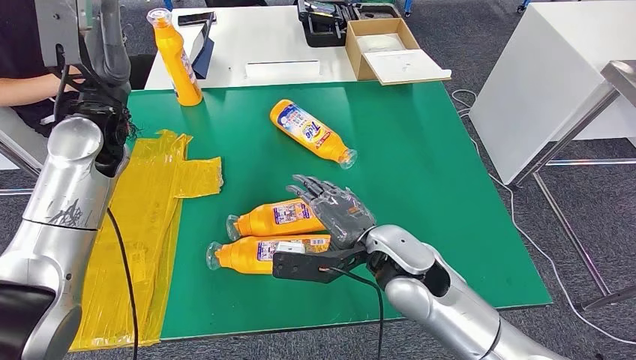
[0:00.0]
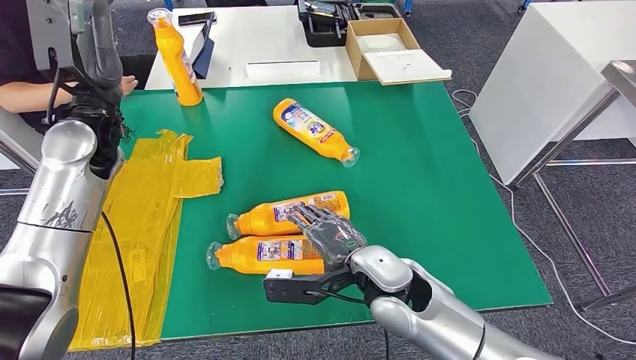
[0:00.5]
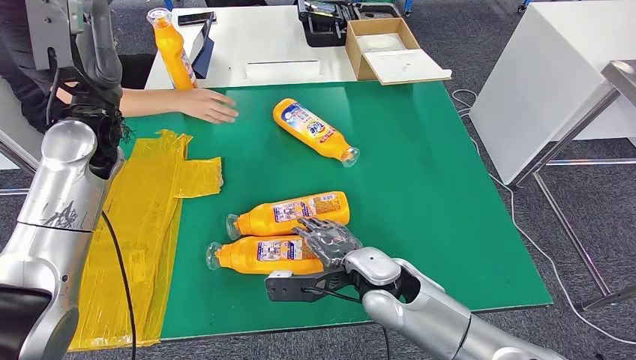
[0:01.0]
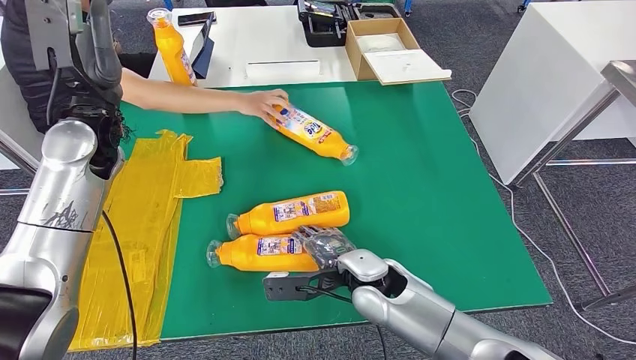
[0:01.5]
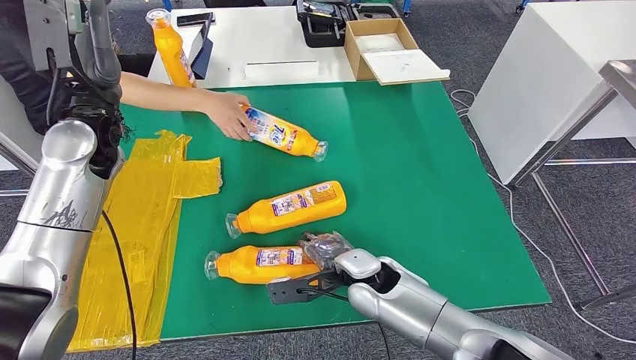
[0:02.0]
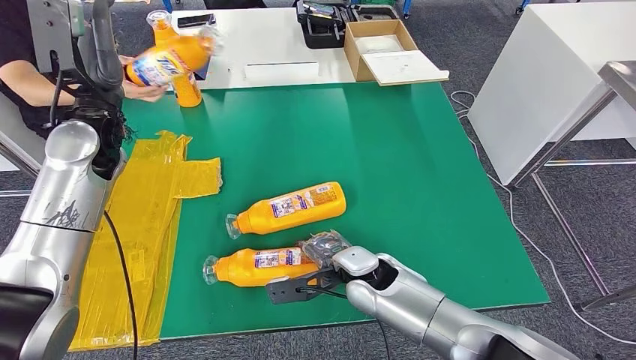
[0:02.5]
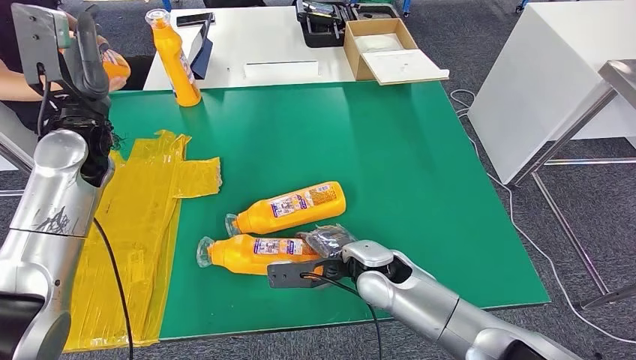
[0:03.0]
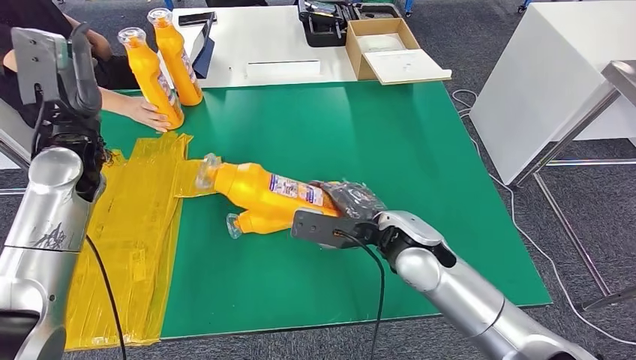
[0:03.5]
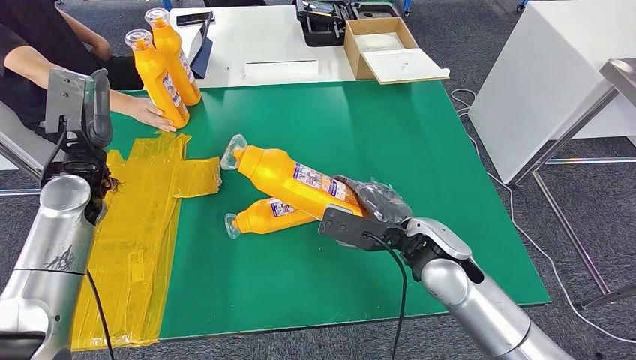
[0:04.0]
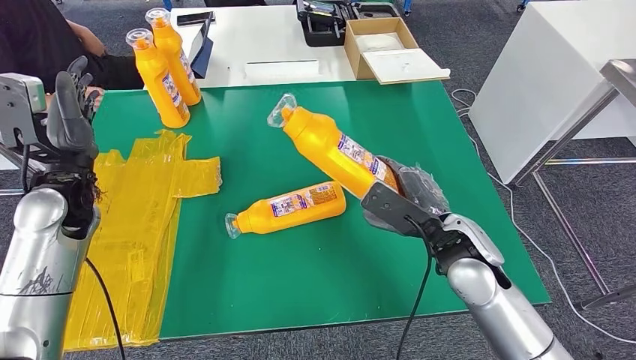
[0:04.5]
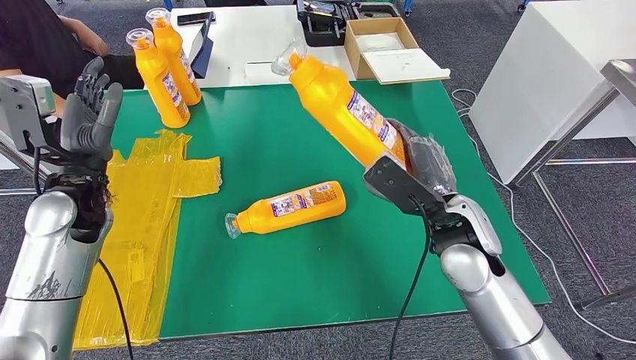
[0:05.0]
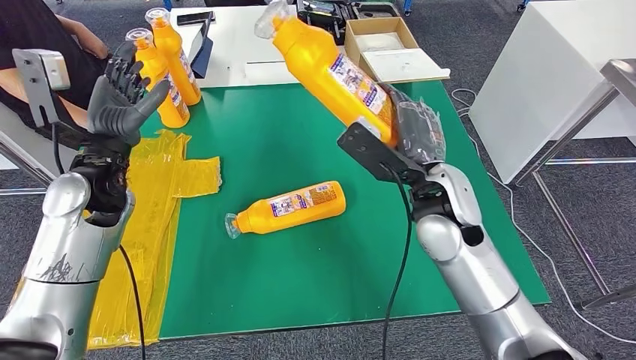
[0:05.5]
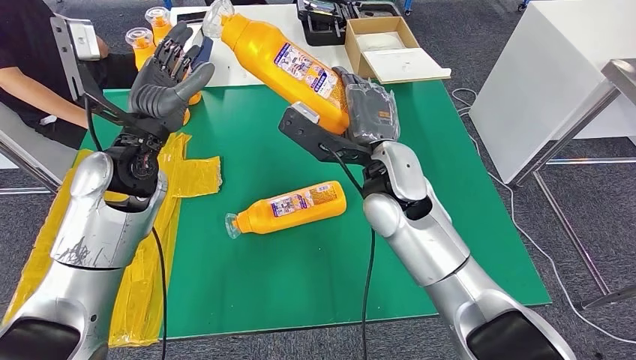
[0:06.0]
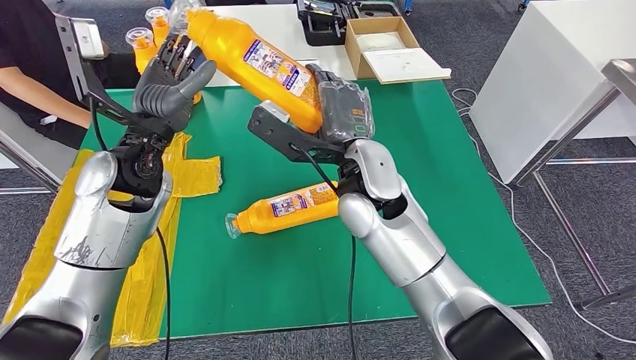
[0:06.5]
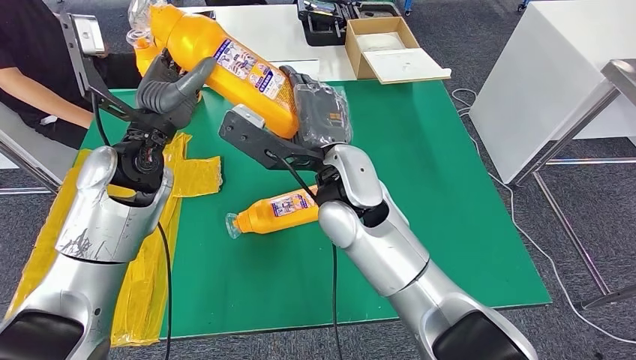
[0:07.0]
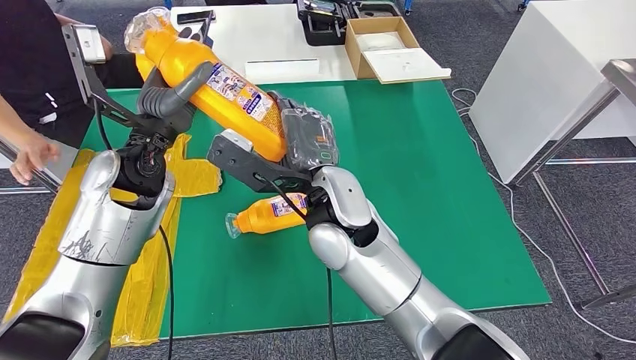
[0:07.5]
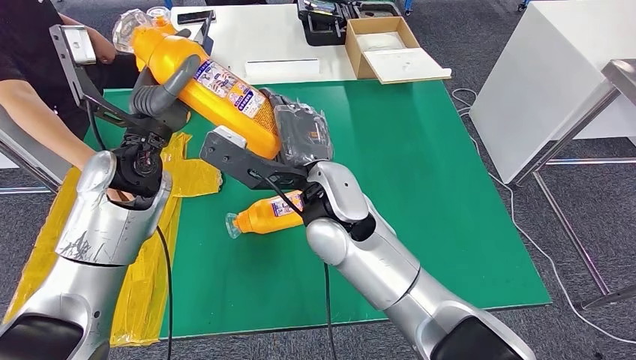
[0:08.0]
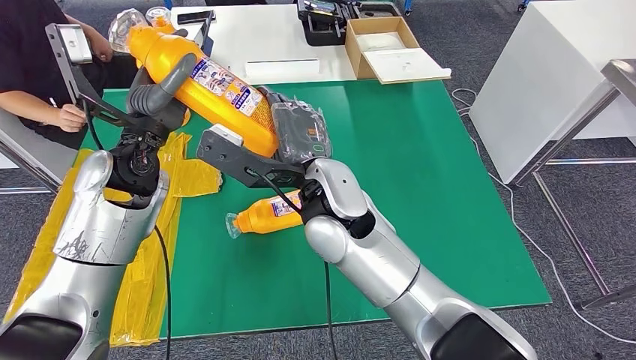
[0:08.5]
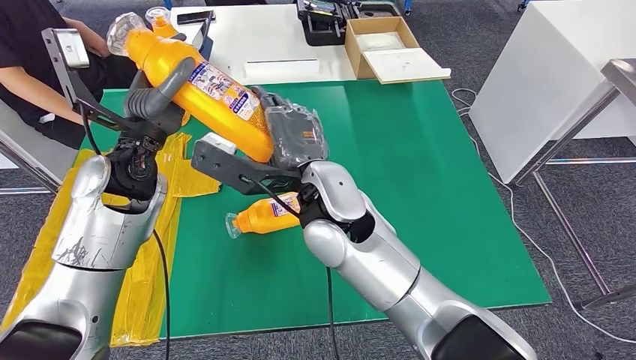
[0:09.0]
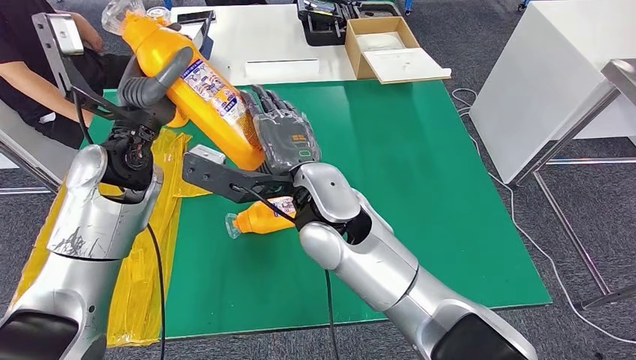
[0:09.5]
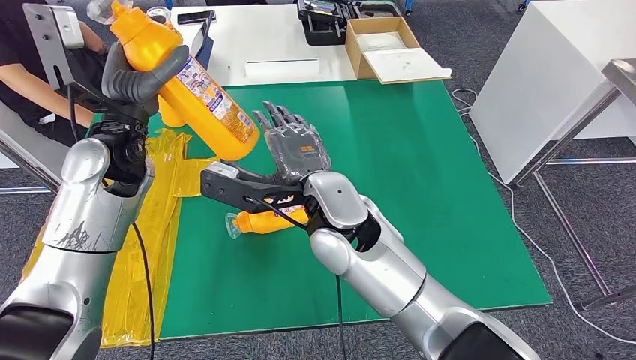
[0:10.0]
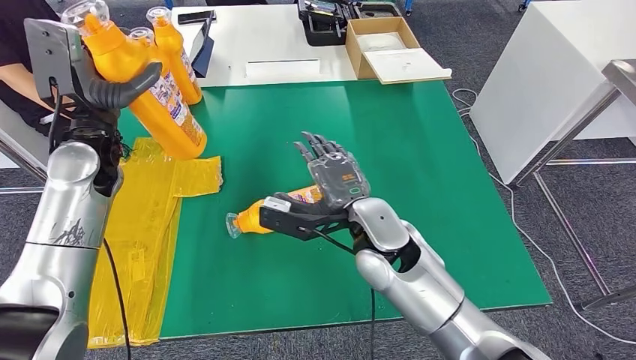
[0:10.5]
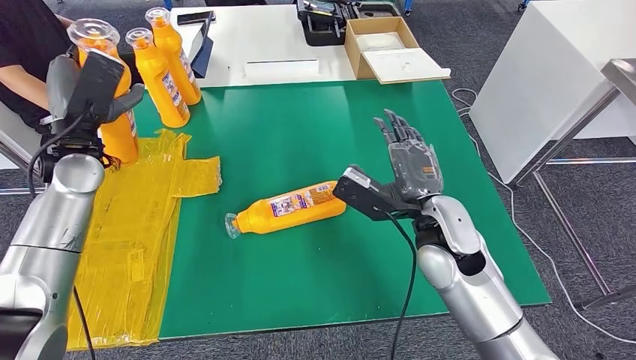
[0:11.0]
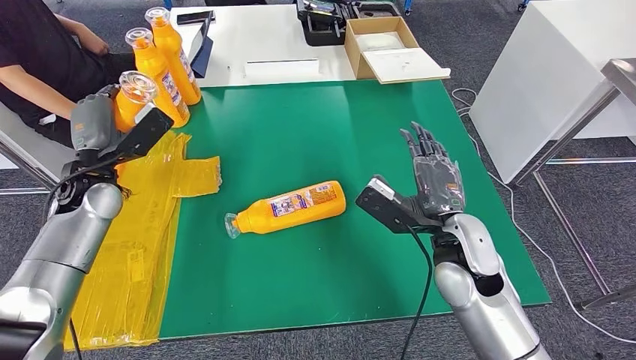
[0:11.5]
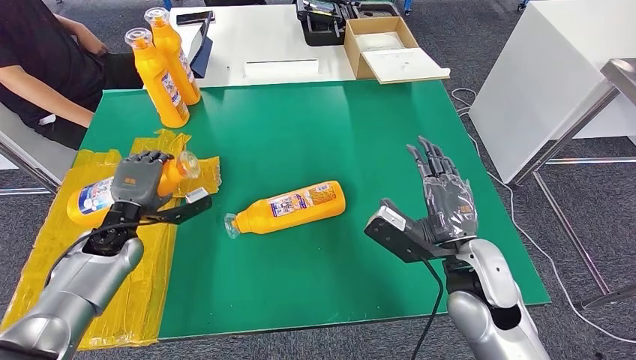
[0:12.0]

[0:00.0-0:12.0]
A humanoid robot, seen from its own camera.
Step, 0:01.0 to 0:07.5: Pick up the fast-moving consumer goods bottle from the table.

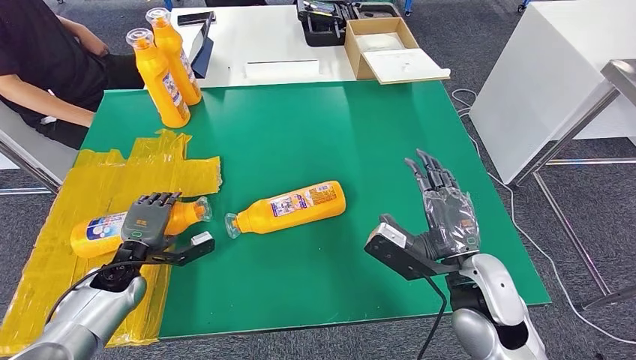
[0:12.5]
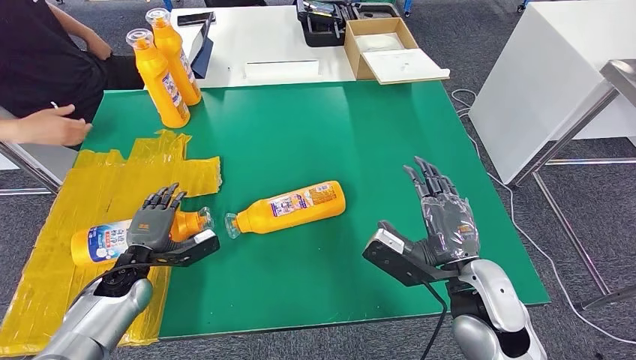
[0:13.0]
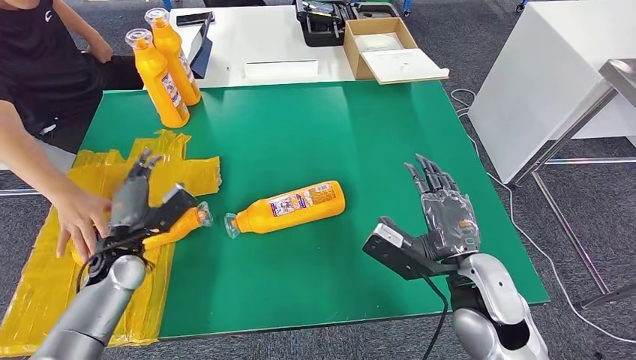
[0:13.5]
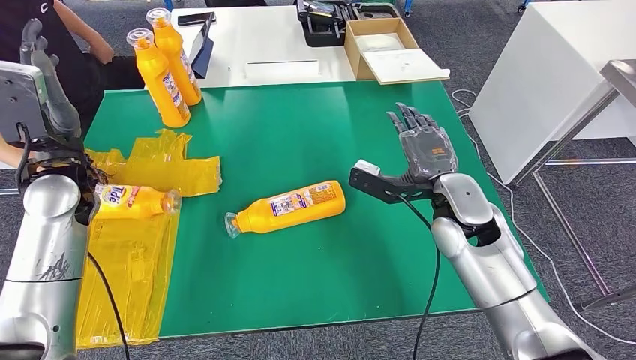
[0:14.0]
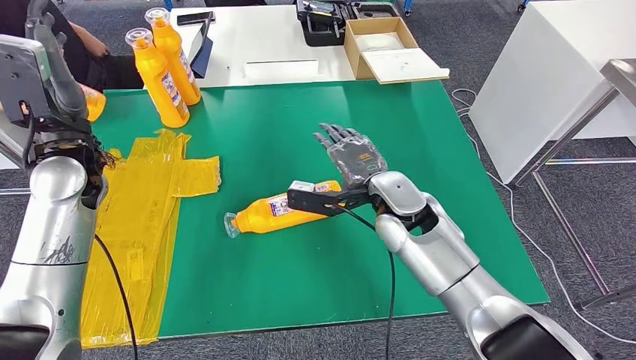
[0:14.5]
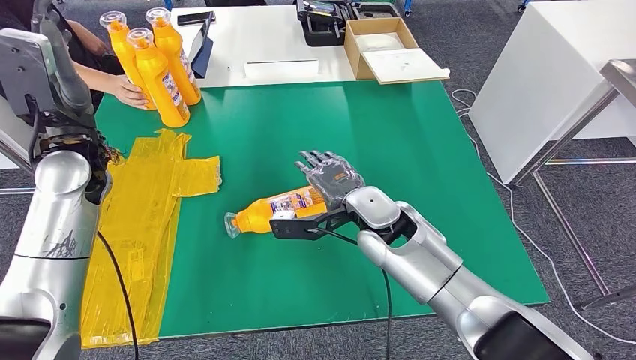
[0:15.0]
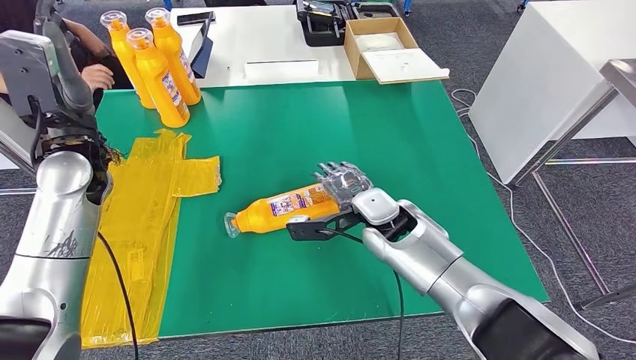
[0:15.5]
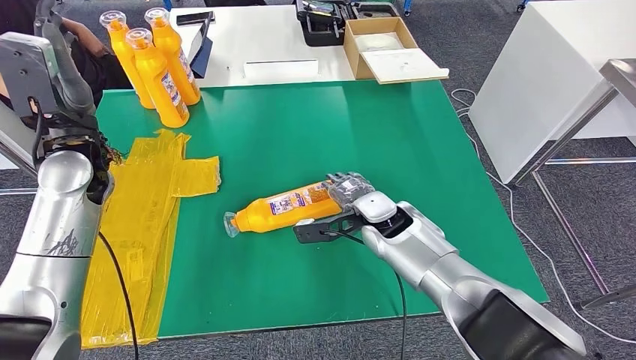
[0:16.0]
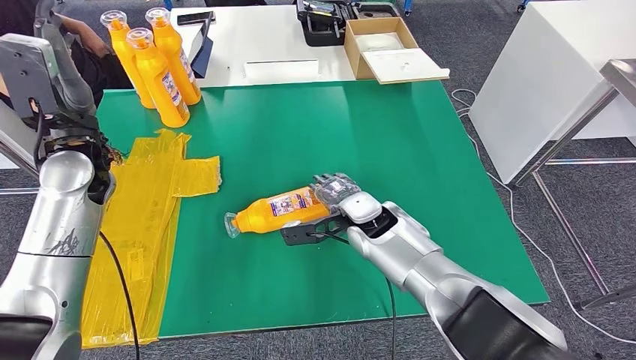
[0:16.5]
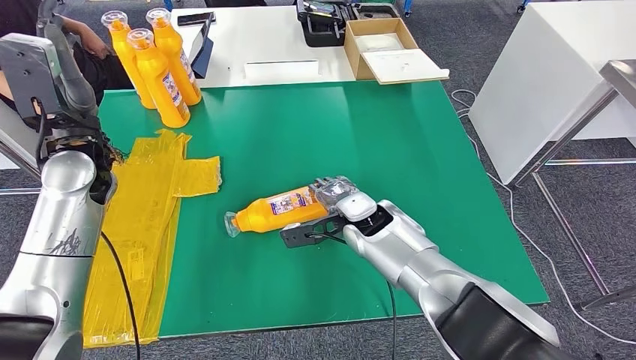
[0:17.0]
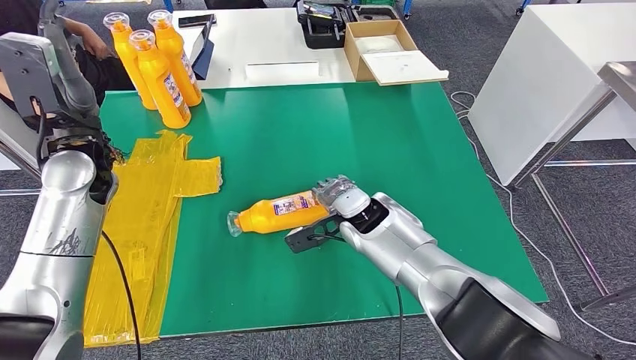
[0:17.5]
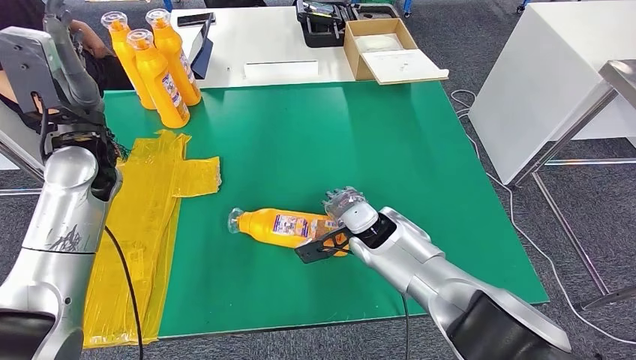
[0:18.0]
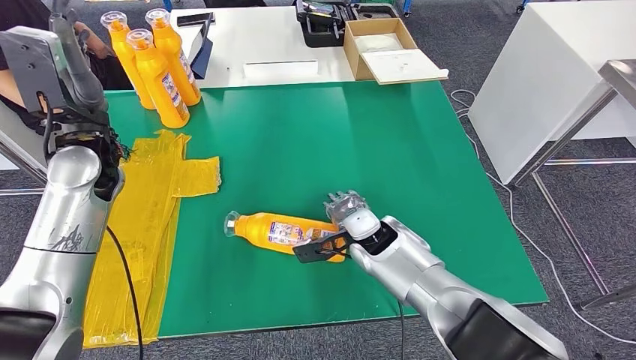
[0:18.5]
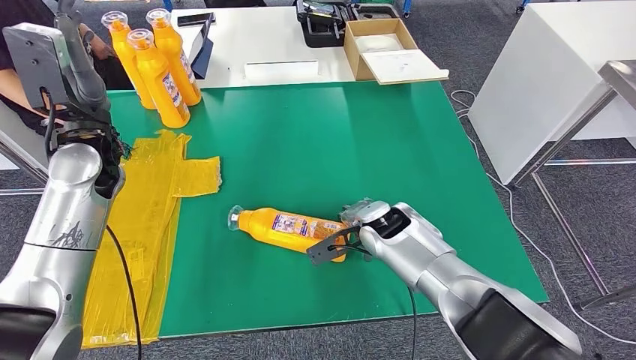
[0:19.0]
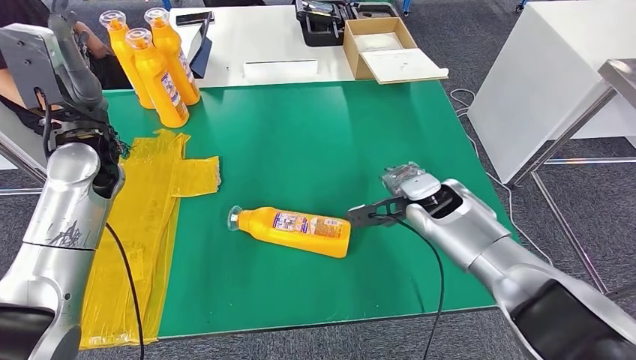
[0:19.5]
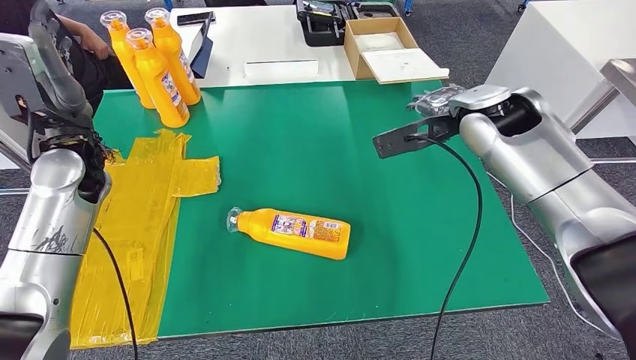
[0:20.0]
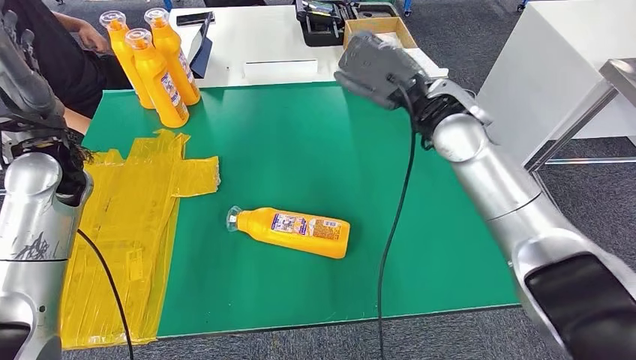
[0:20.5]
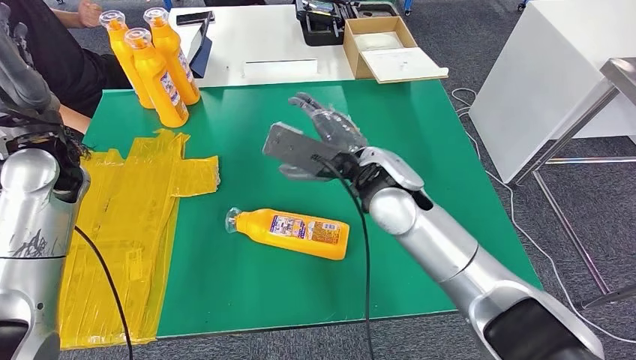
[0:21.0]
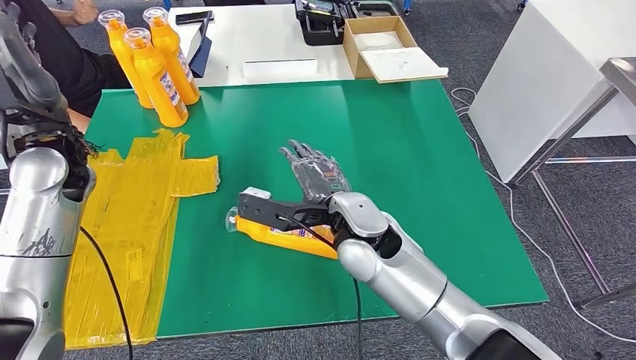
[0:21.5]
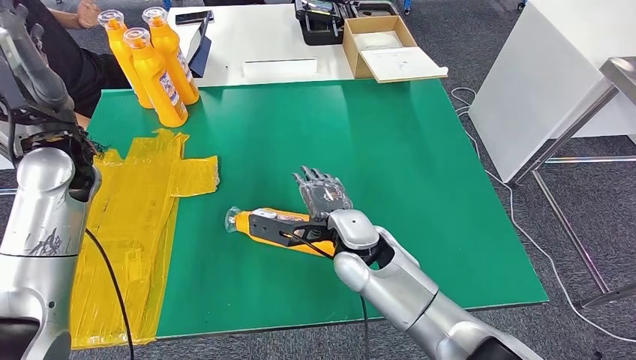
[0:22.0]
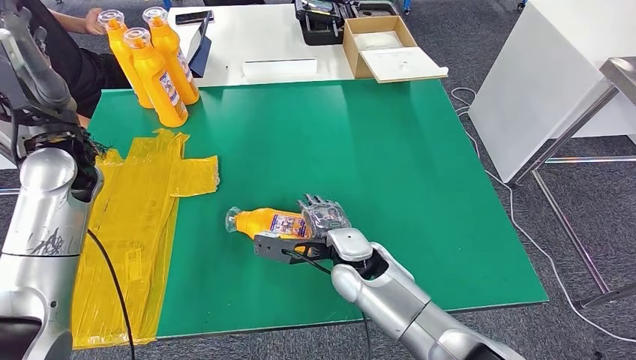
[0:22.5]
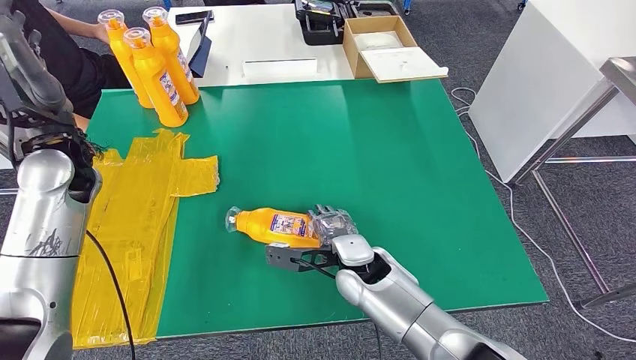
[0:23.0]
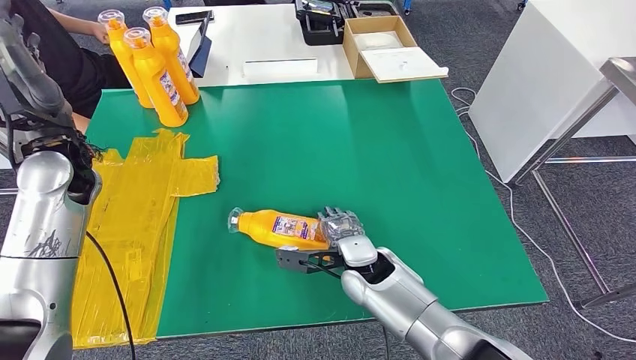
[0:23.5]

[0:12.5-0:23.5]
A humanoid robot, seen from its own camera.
0:14.5 to 0:16.0: The right hand travels downward by roughly 5 cm.
0:16.0 to 0:18.0: The hands stay close to where they were, moving slightly.
0:21.5 to 0:23.5: The right hand is displaced downward by approximately 10 cm.
